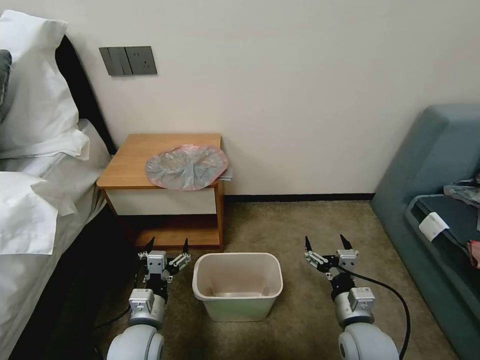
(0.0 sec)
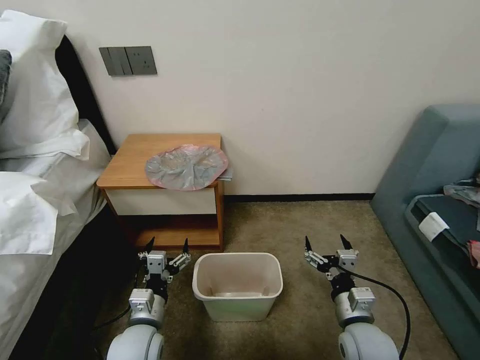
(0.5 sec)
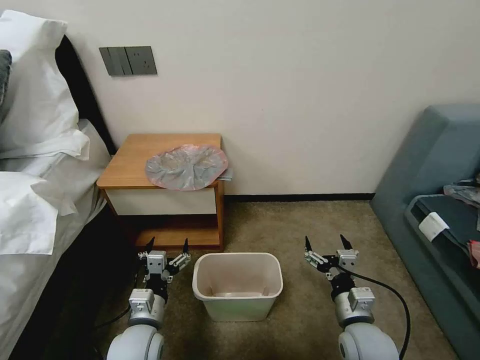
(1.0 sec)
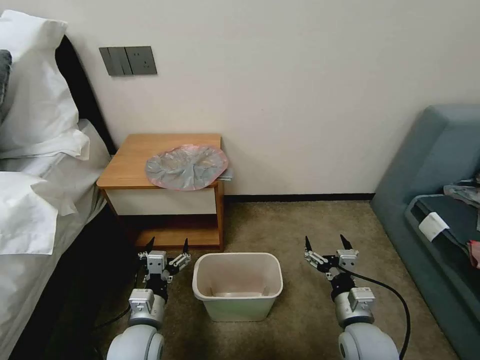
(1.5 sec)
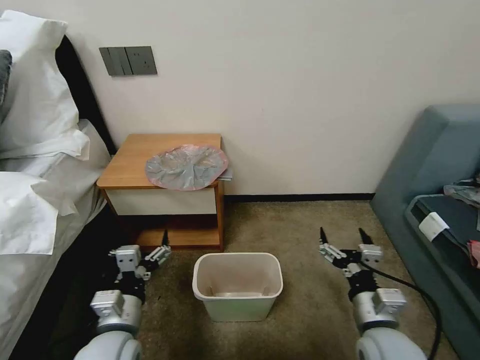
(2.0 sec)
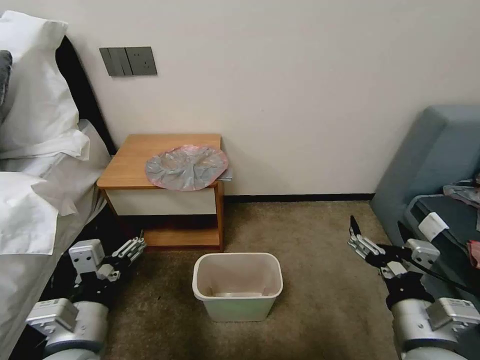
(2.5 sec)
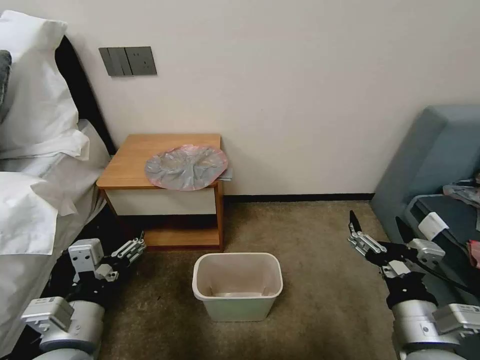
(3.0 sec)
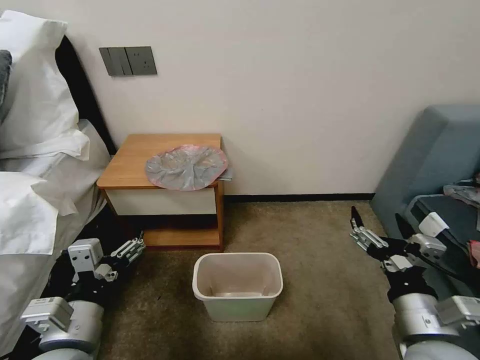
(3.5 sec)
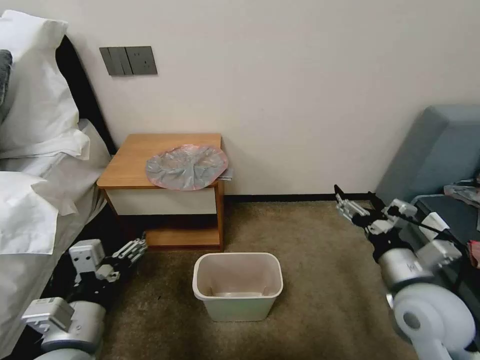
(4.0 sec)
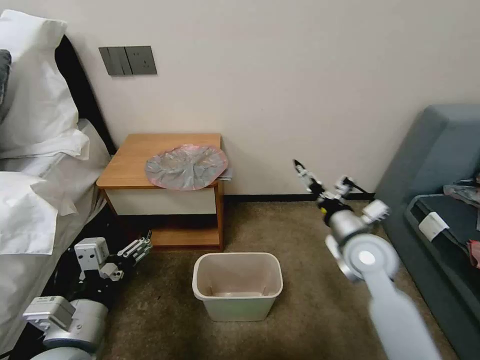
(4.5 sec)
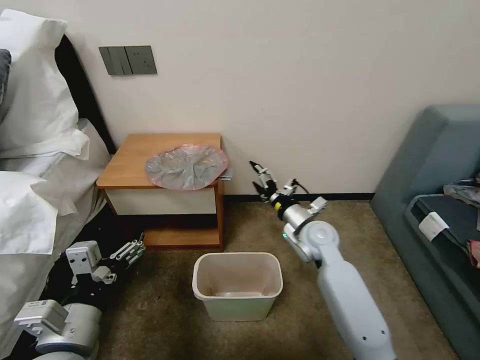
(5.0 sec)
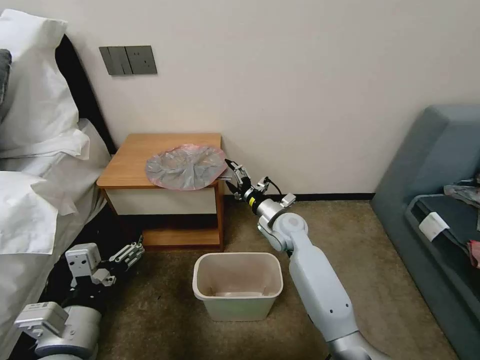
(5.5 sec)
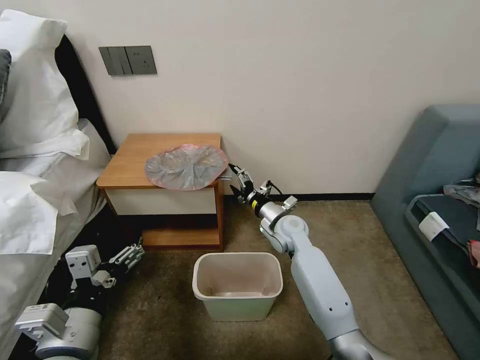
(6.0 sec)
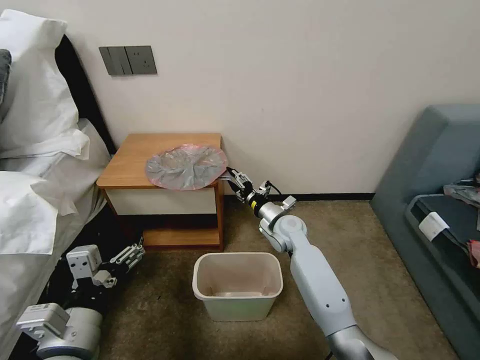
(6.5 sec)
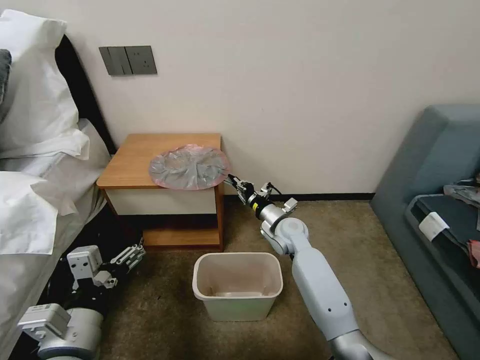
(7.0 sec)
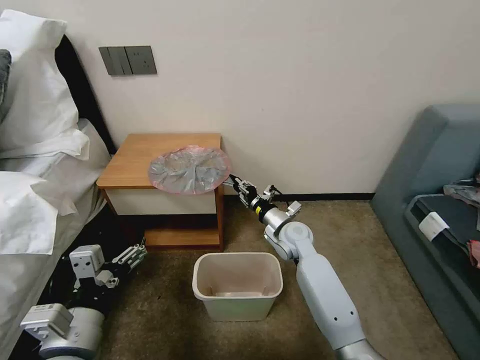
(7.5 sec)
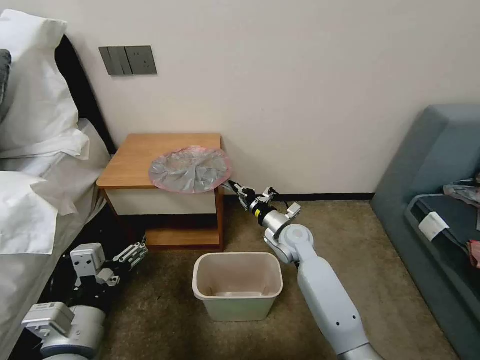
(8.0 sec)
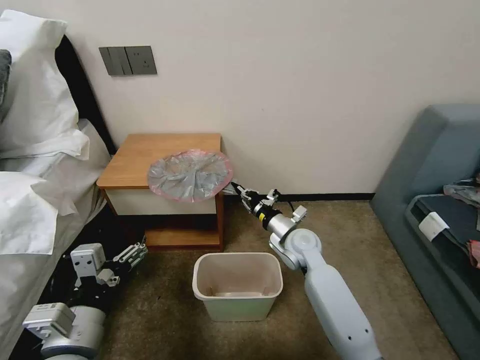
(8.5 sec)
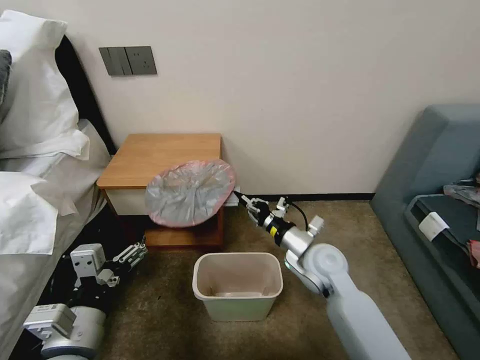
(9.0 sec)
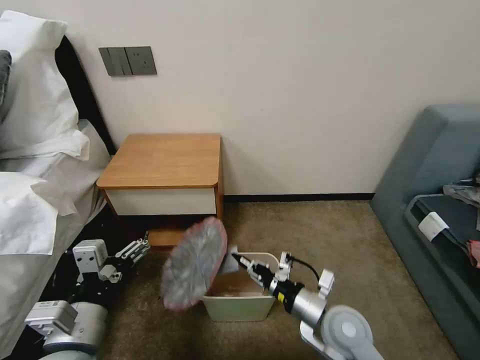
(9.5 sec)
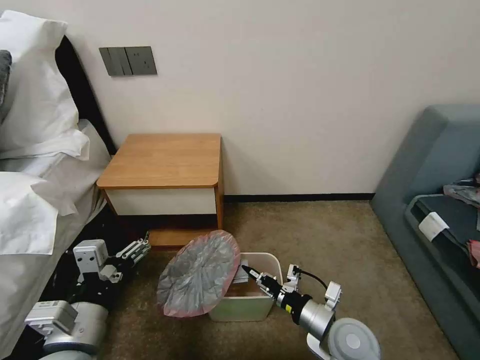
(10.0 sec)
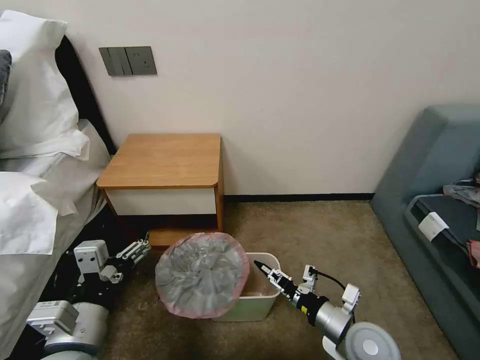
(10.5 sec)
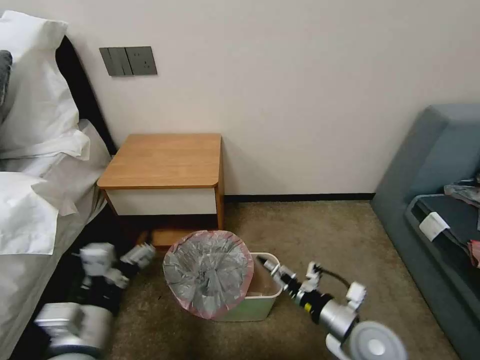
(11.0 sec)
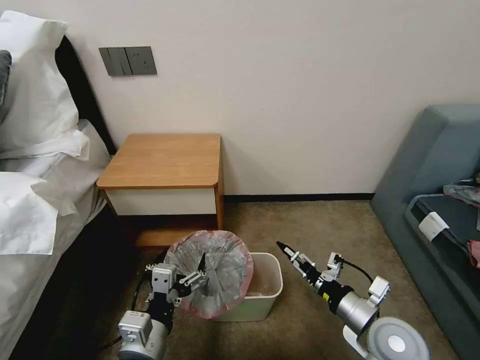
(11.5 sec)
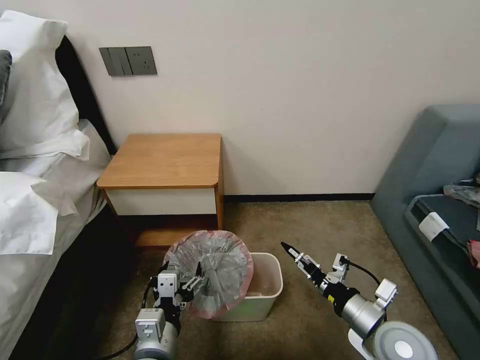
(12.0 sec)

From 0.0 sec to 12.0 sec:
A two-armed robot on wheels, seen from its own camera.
Task of the whole recording: Pick up the garbage bag from the table and place it over the trash can.
From 2.0 sec to 4.0 sec: Both grippers move upward, roughly 10 cm.
From 4.0 sec to 6.0 sec: The right gripper is displaced forward, to the left and downward by about 30 cm.
From 6.0 sec to 8.0 sec: The right gripper closes.
From 8.0 sec to 10.0 sec: The right gripper moves backward, approximately 25 cm.
From 10.0 sec to 12.0 sec: The right gripper heads to the right, covering some 5 cm, and opens its fingers; the left gripper is displaced to the right and downward by approximately 10 cm.

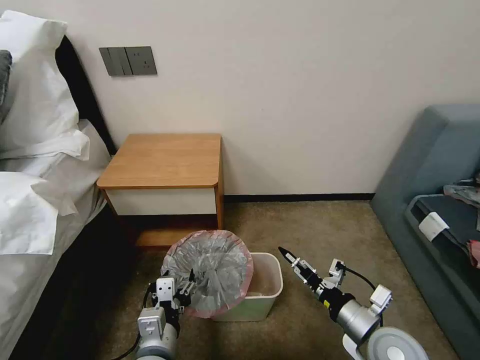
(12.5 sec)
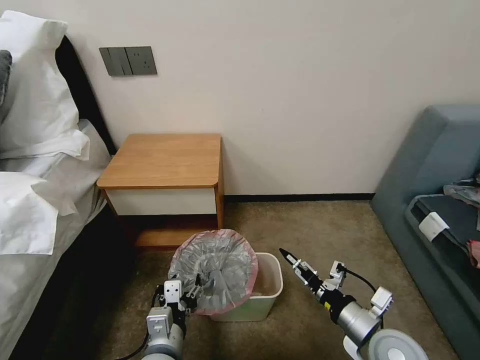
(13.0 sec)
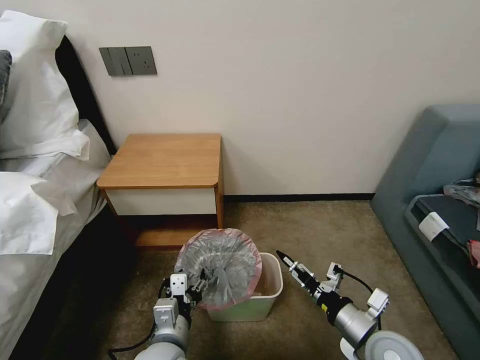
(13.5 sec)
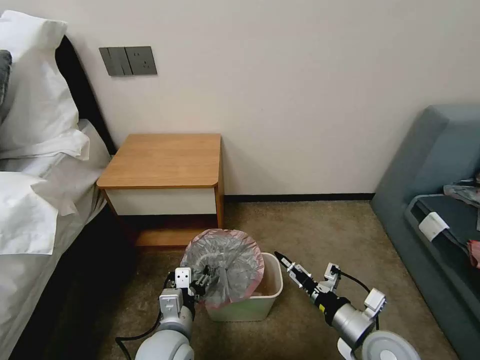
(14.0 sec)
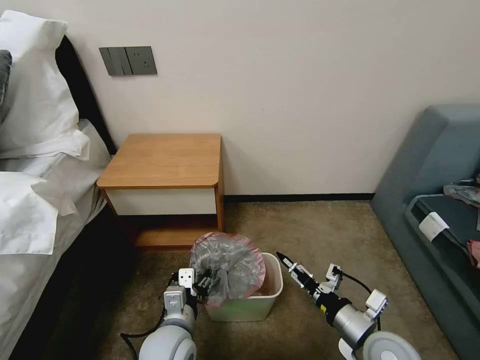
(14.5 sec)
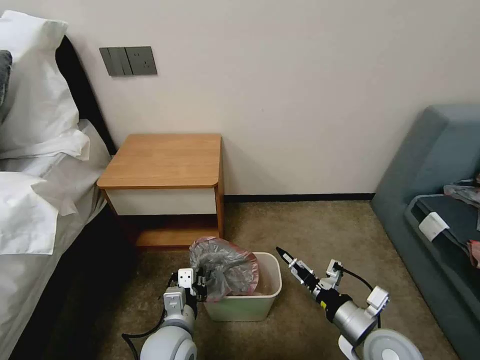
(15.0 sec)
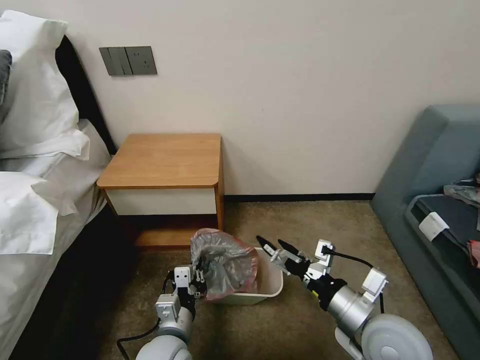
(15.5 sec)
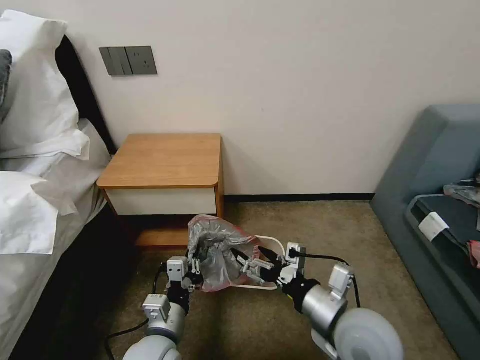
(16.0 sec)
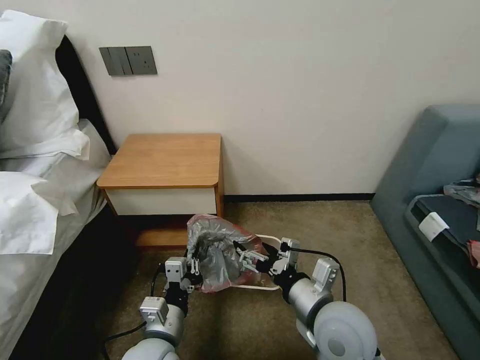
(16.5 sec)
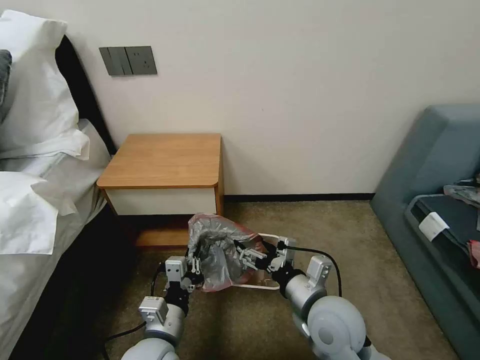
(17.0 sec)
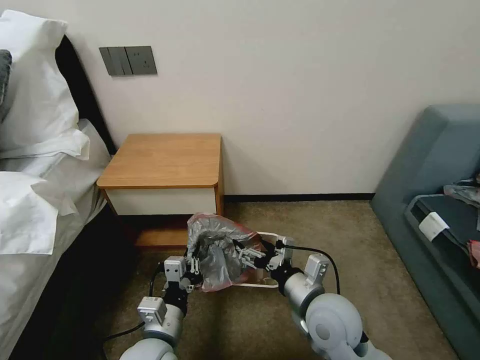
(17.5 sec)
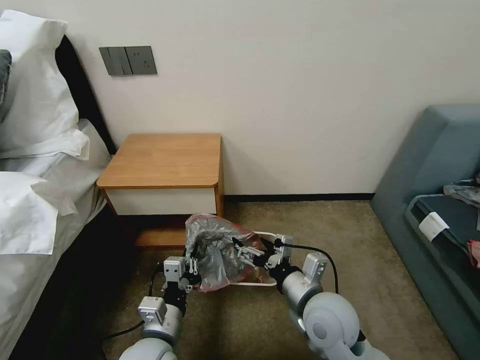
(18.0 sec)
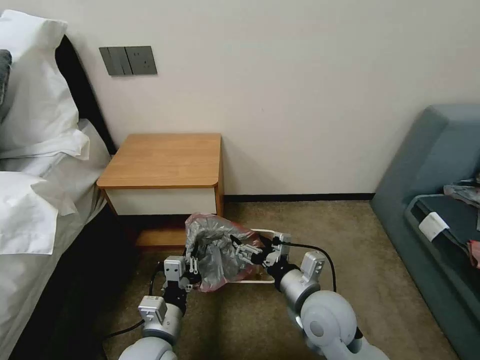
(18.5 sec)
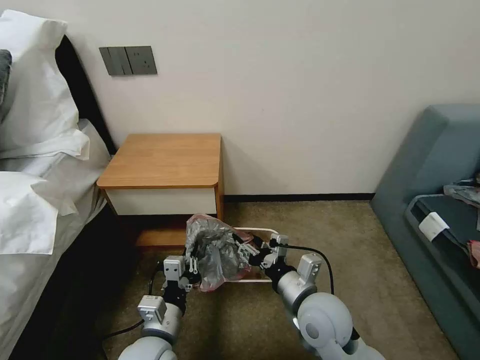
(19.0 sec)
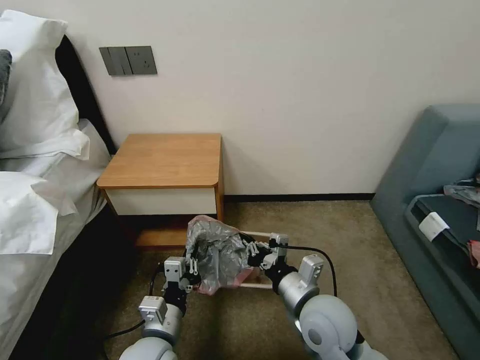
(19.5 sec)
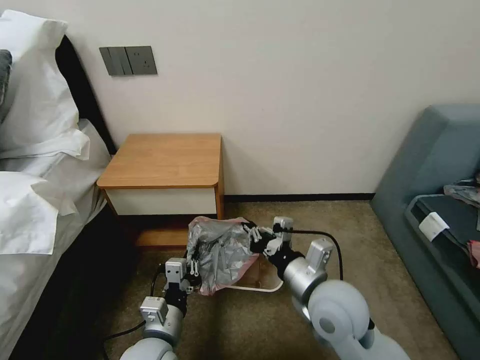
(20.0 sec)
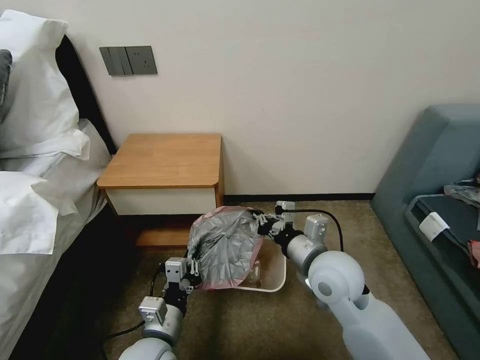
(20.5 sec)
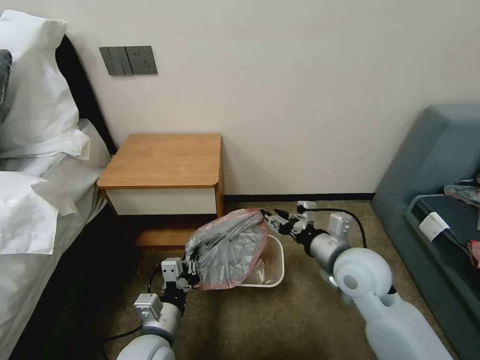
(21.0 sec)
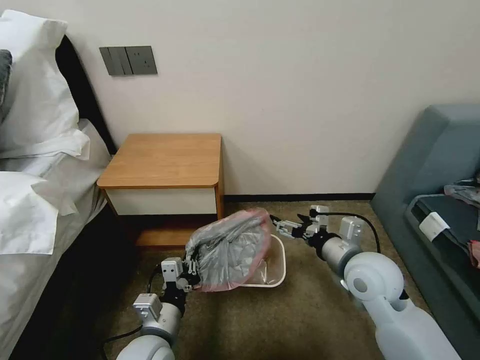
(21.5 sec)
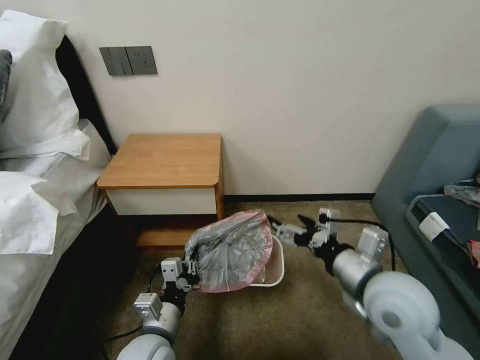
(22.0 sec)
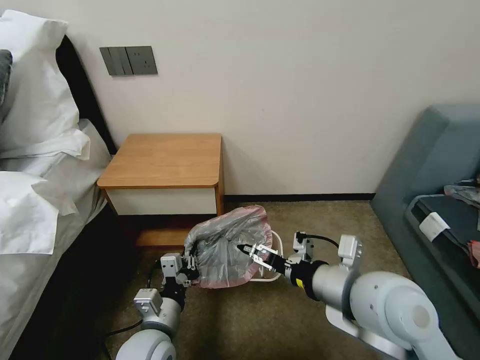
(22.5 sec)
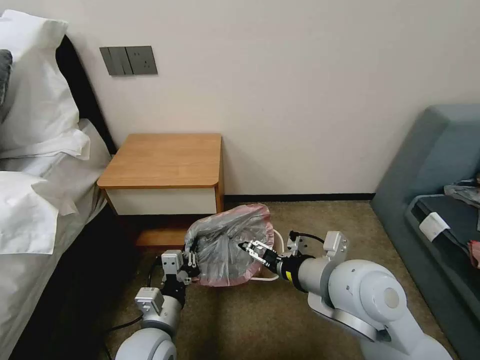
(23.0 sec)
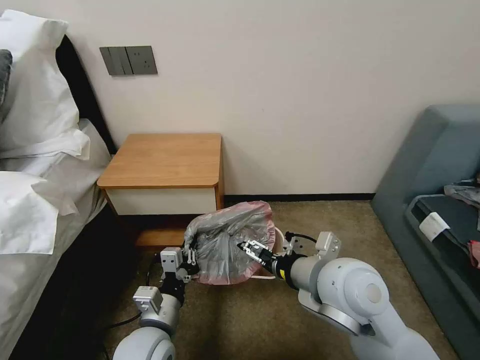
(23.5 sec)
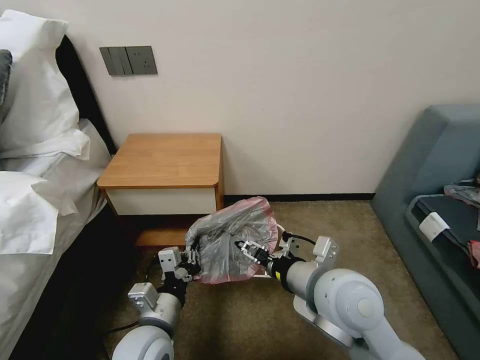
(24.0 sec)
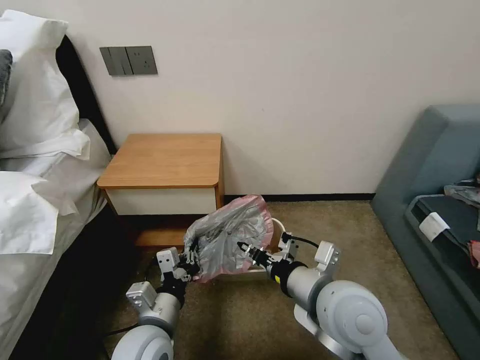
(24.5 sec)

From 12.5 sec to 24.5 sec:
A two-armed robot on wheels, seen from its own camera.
Task of the whole recording: Pick up the garbage bag from the table and place it over the trash can.
From 12.5 sec to 14.5 sec: The left gripper shifts about 5 cm forward.
From 14.5 sec to 16.5 sec: The left gripper closes; the right gripper goes approximately 15 cm to the left and upward.
From 16.5 sec to 18.5 sec: The grippers move only a little.
From 18.5 sec to 20.5 sec: The right gripper heads forward and upward, covering some 10 cm, and closes up.
From 20.5 sec to 22.5 sec: The right gripper travels backward and upward by roughly 10 cm, and opens up.
From 22.5 sec to 24.5 sec: The right gripper changes place by about 5 cm, and closes its fingers.

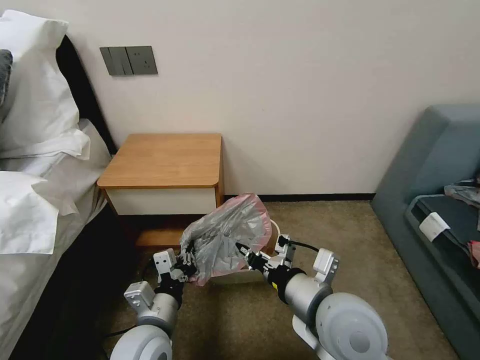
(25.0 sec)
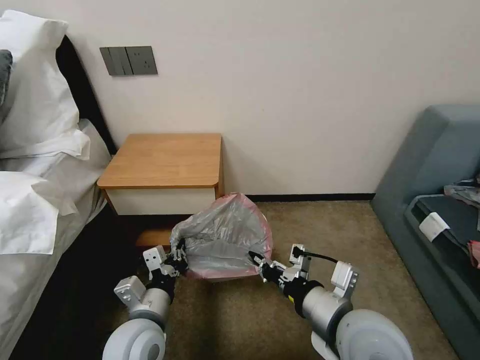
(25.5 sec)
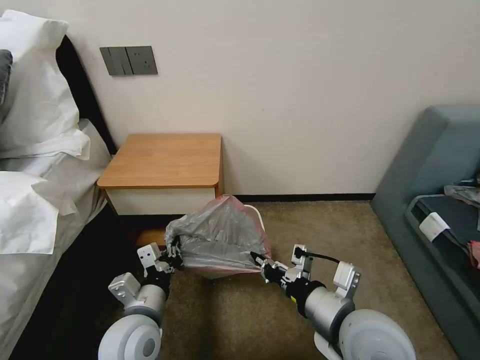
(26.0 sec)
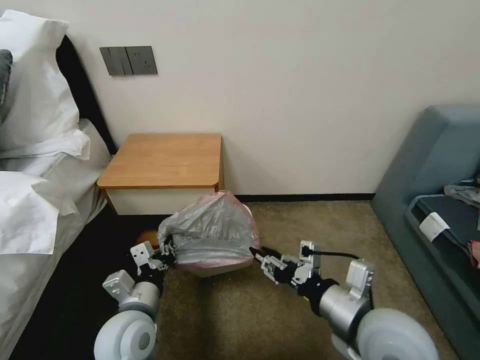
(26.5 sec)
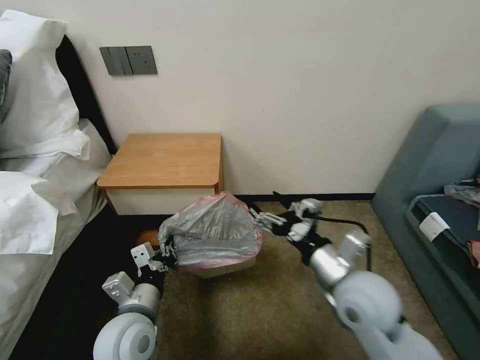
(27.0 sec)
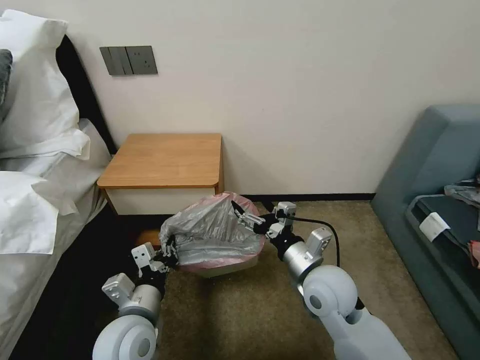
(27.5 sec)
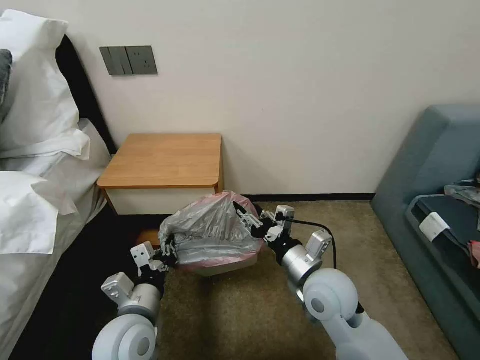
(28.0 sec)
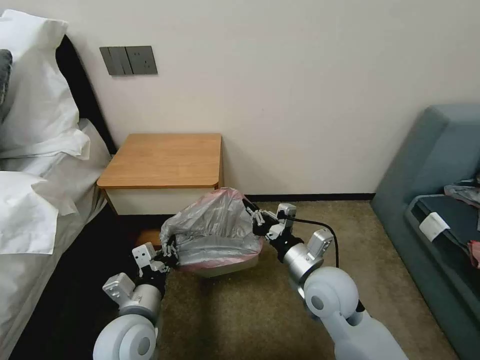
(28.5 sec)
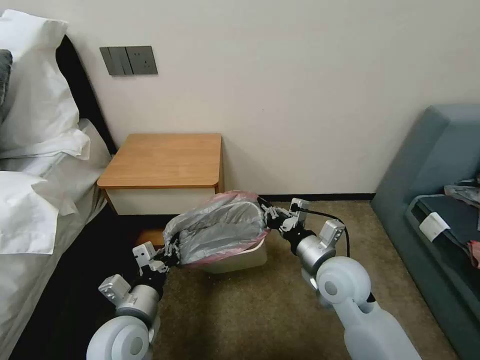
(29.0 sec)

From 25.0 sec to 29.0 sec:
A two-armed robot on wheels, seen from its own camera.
Task of the whole recording: Pick up the garbage bag from the table and place it over the trash can.
From 25.0 sec to 27.0 sec: The right gripper shifts approximately 5 cm to the right, and opens.
From 27.0 sec to 29.0 sec: The right gripper goes some 5 cm forward, and closes up.
